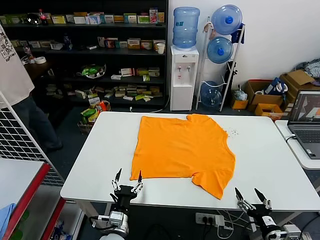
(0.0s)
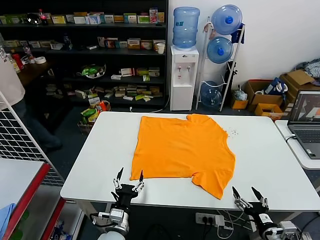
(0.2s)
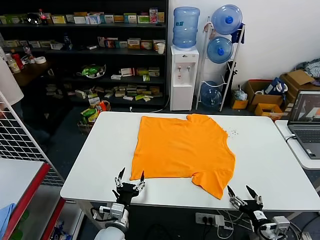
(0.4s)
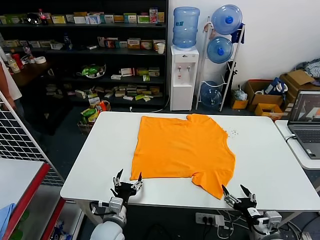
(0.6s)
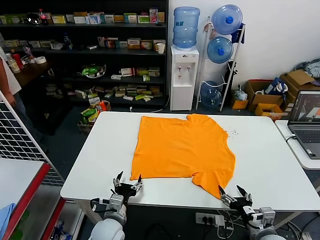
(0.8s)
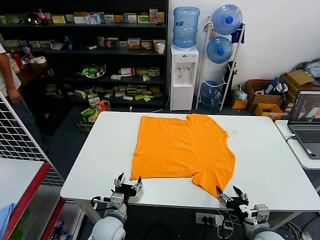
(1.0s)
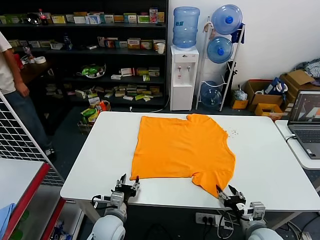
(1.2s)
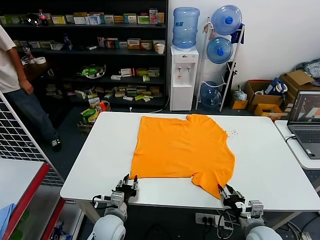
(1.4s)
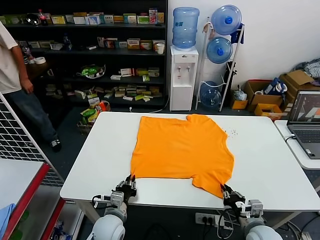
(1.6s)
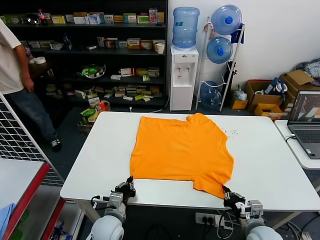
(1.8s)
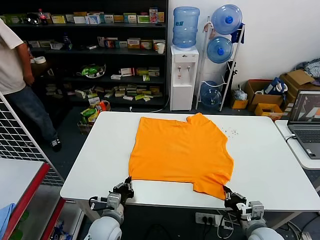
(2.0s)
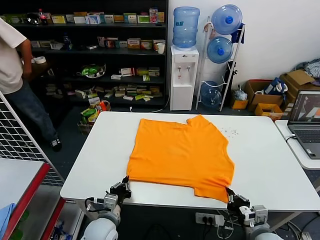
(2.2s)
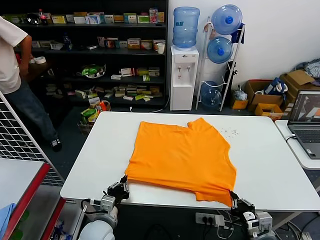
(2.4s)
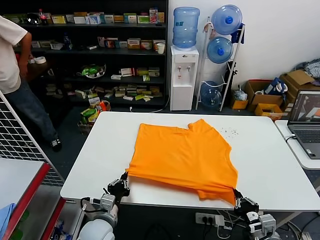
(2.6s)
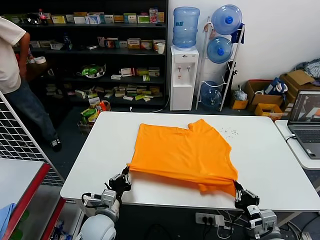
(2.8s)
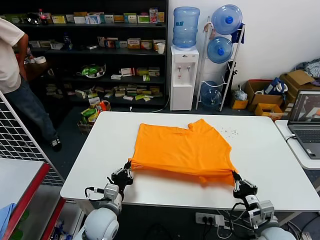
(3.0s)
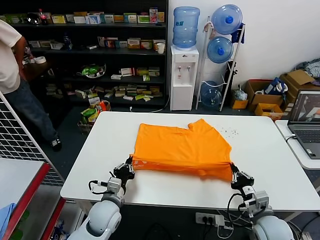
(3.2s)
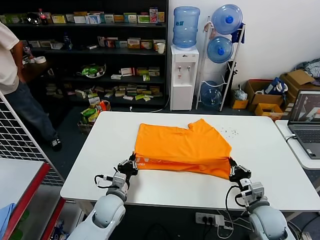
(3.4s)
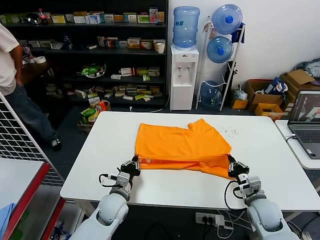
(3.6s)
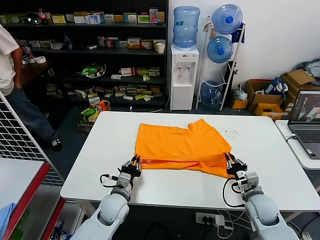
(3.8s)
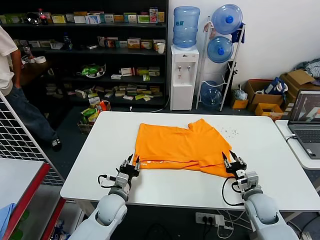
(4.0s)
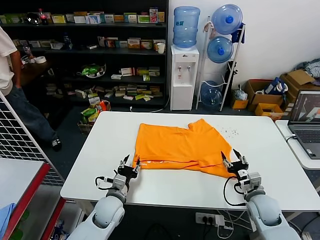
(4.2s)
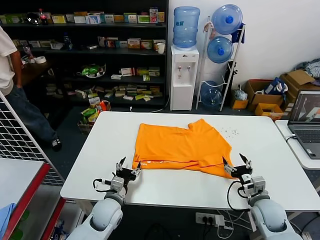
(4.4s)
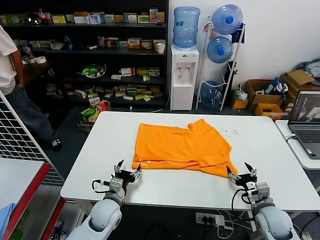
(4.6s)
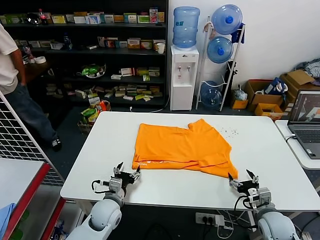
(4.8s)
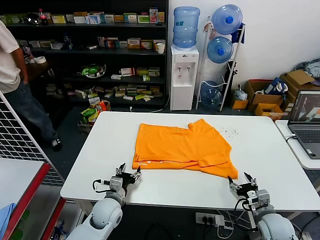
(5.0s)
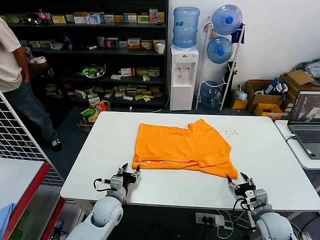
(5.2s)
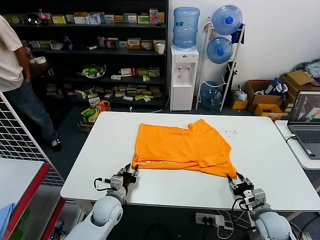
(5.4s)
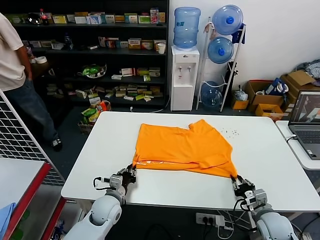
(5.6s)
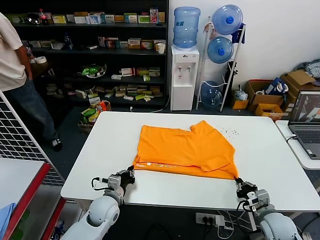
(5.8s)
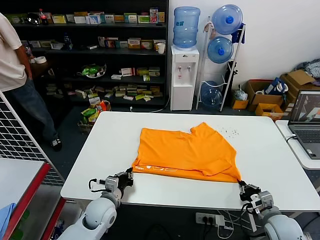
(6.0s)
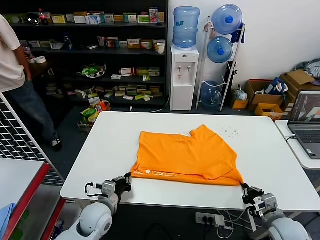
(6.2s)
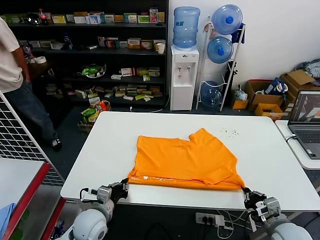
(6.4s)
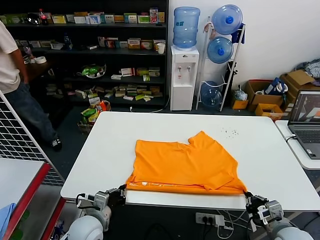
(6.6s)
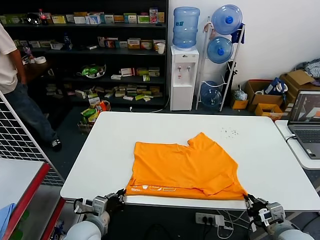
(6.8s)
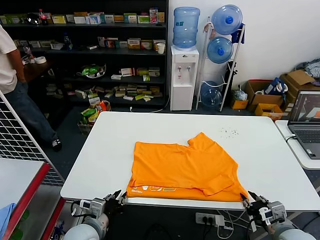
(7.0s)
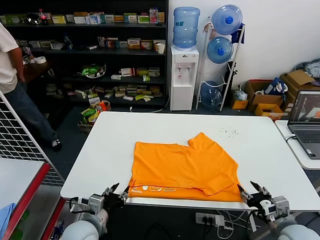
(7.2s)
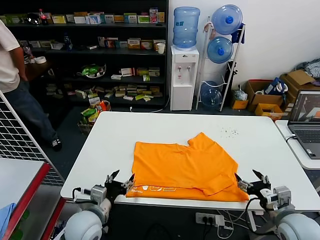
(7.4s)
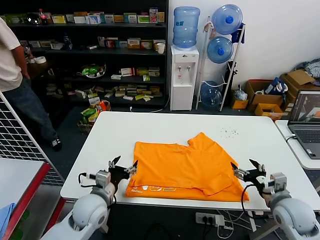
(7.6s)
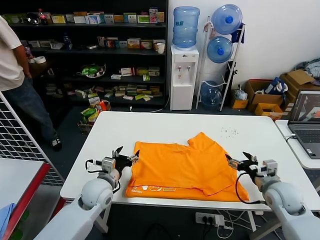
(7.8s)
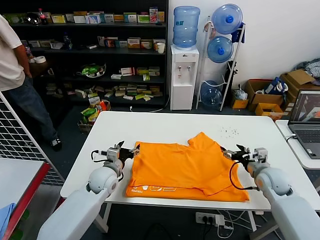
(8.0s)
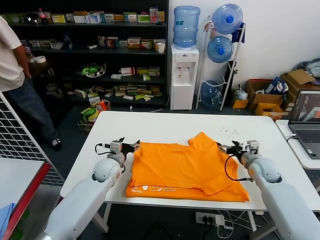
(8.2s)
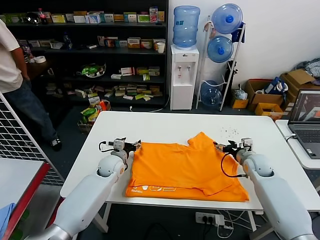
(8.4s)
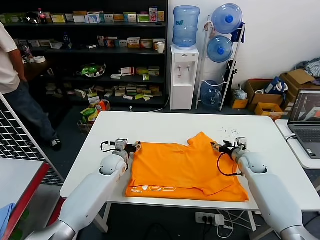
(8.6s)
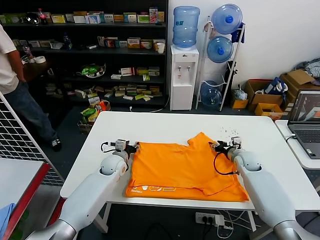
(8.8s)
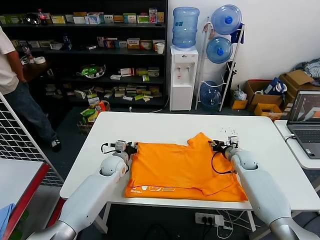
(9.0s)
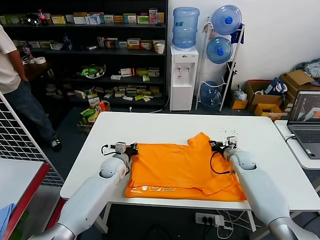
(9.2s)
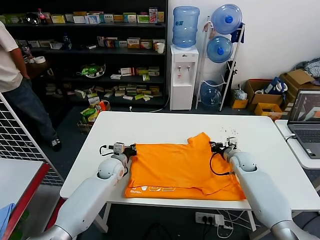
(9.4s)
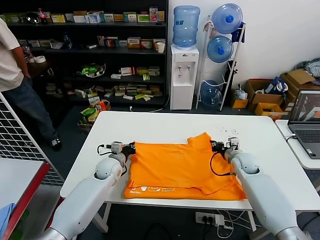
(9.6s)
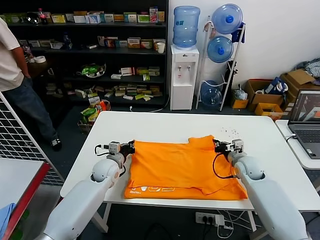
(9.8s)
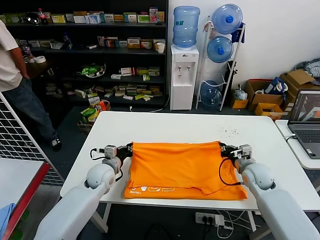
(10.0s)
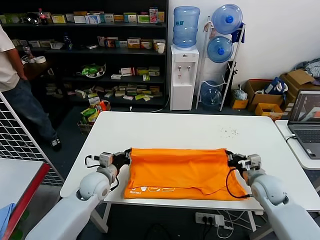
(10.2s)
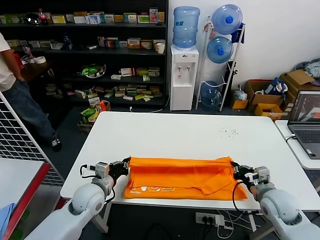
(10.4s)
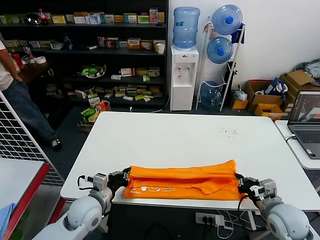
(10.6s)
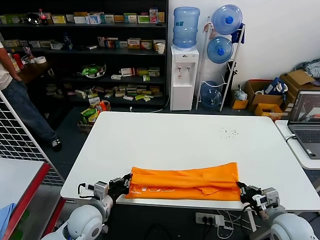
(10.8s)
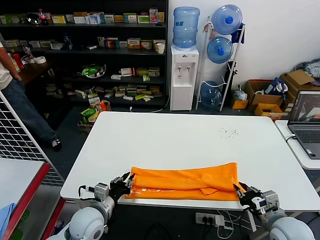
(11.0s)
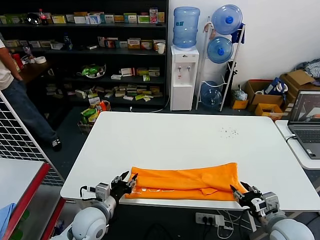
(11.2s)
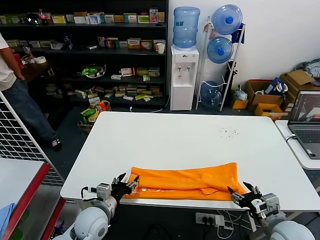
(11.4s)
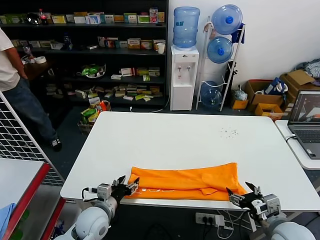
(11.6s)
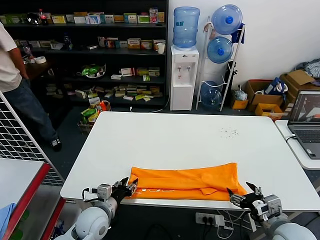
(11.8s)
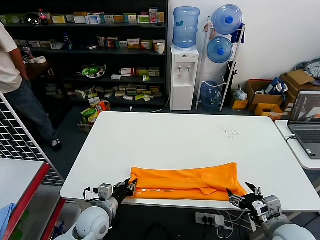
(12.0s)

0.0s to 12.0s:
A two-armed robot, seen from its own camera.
Task of the whole recording: fold and organize the clothes.
Step, 0.0s to 1.8s: use both grippers simultaneously to clamp the lower edge of the clothing fabric.
Step, 2.0s to 3.8s: use both grippers to drag the lower edge of the fabric forward and fold it over the upper edge.
Step, 4.0s to 6.8s: Drag the clothes downward with both gripper.
Step, 7.2s to 9.4s: use both grippers simultaneously to clamp the upper edge of the clothing fabric.
Step, 9.6s to 10.8s: use both grippers to drag the upper edge of the fabric backward and fold it over the lower edge.
1.6s to 3.0s: The left gripper moves some 5 cm, and closes.
3.0s to 4.4s: The left gripper is displaced forward by roughly 5 cm, and opens, while the right gripper moves forward, roughly 10 cm, and opens its fingers.
4.4s to 6.0s: The left gripper closes, while the right gripper goes about 5 cm backward, and closes its fingers.
6.0s to 7.6s: The left gripper travels upward and backward by some 10 cm, and opens up, while the right gripper is displaced upward by roughly 10 cm, and opens up.
7.6s to 9.0s: The grippers both shift forward by roughly 25 cm. The right gripper closes, while the left gripper closes up.
9.0s to 10.4s: Both grippers travel together backward, some 15 cm. The left gripper closes up; the right gripper closes its fingers.
10.4s to 12.0s: The two grippers go about 10 cm backward. The right gripper opens; the left gripper opens up.

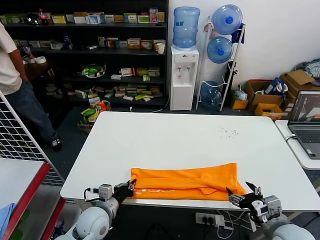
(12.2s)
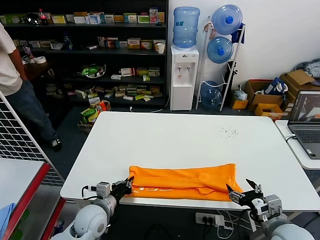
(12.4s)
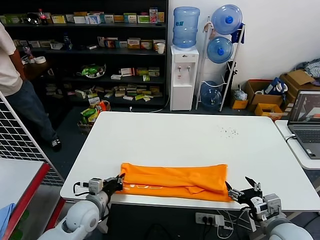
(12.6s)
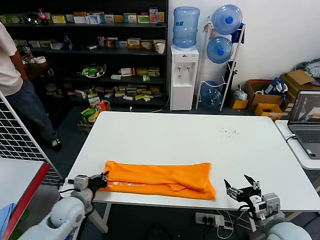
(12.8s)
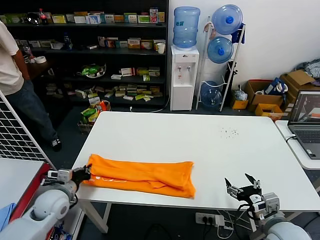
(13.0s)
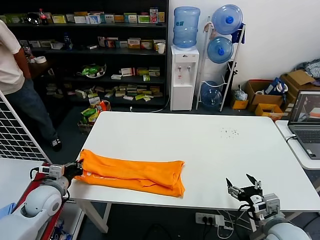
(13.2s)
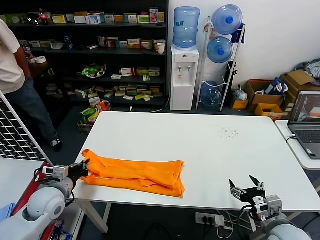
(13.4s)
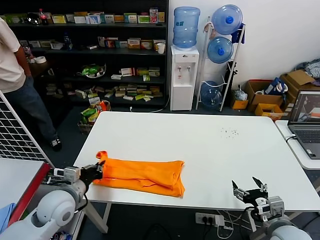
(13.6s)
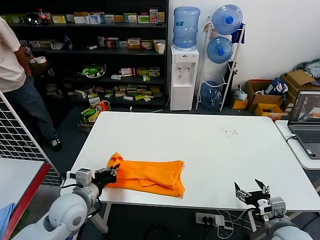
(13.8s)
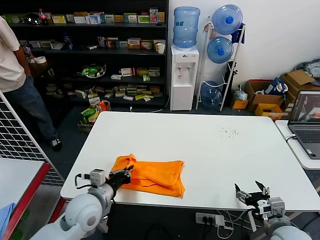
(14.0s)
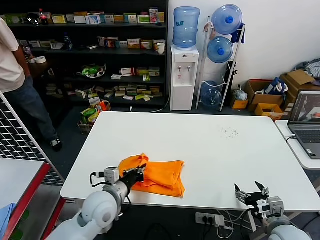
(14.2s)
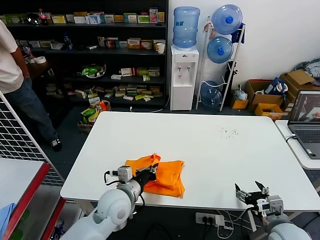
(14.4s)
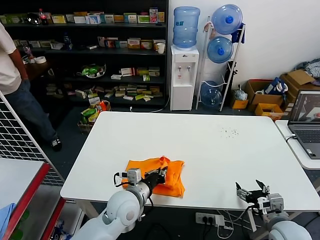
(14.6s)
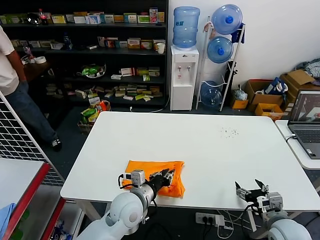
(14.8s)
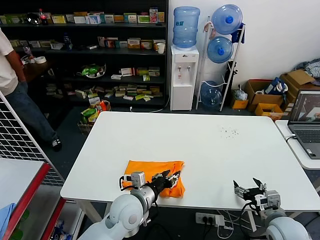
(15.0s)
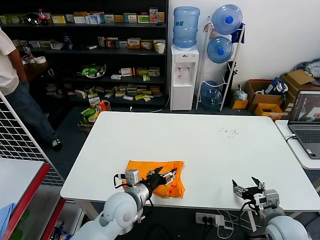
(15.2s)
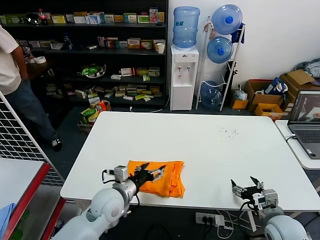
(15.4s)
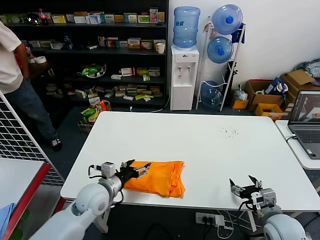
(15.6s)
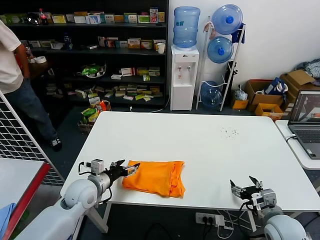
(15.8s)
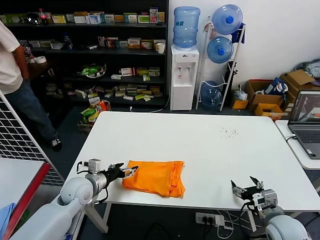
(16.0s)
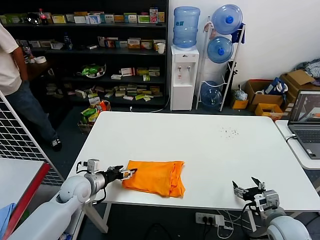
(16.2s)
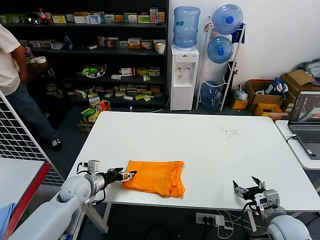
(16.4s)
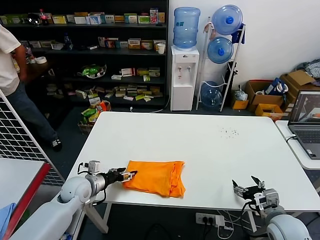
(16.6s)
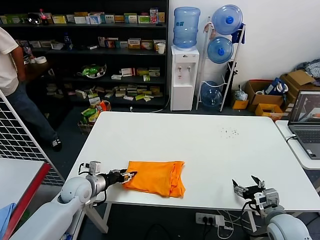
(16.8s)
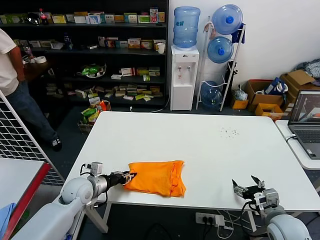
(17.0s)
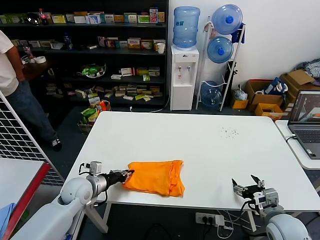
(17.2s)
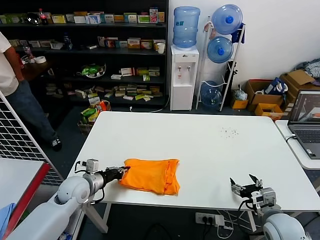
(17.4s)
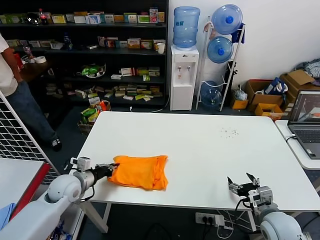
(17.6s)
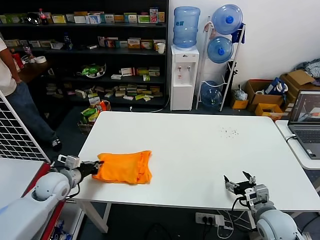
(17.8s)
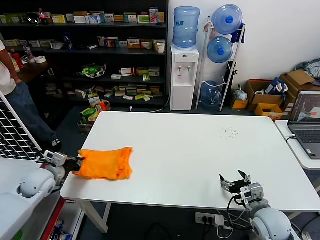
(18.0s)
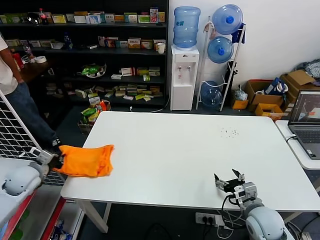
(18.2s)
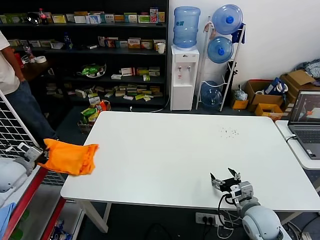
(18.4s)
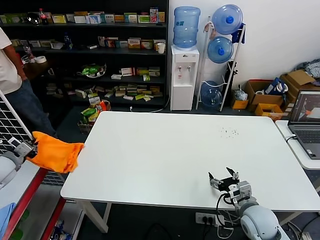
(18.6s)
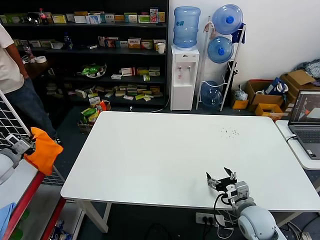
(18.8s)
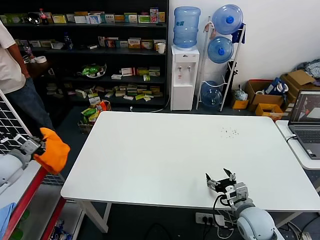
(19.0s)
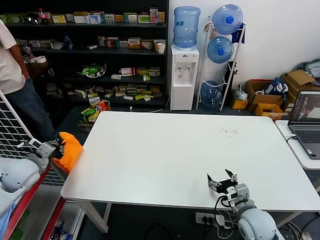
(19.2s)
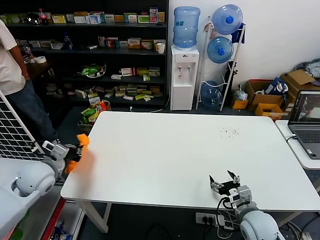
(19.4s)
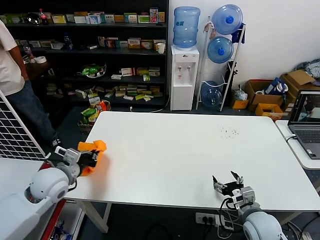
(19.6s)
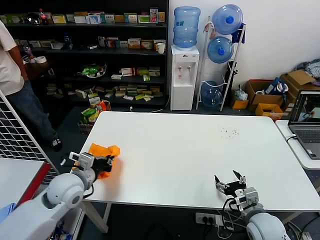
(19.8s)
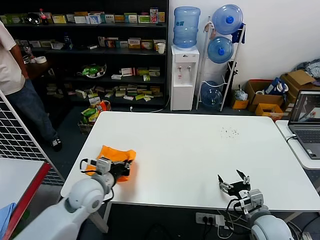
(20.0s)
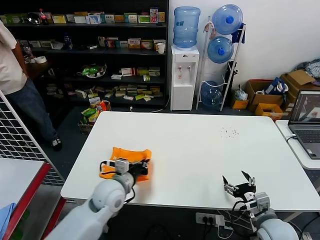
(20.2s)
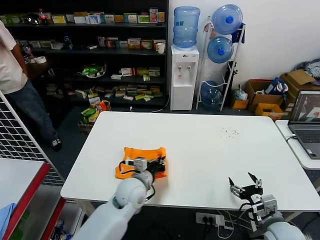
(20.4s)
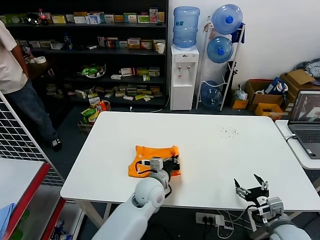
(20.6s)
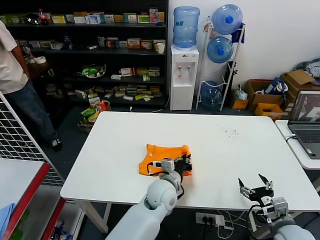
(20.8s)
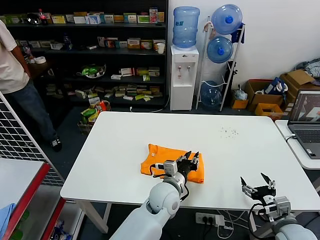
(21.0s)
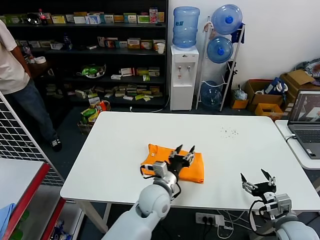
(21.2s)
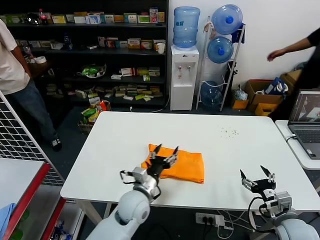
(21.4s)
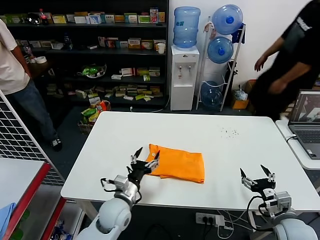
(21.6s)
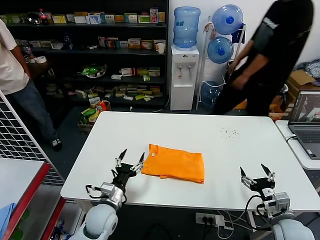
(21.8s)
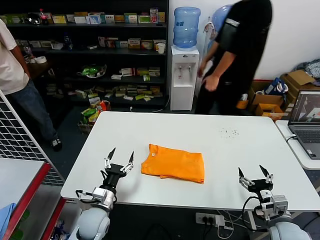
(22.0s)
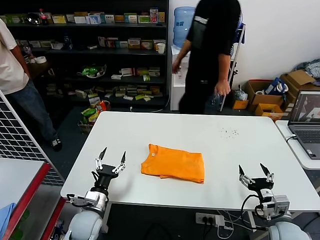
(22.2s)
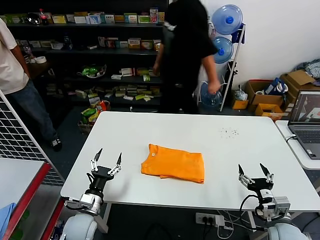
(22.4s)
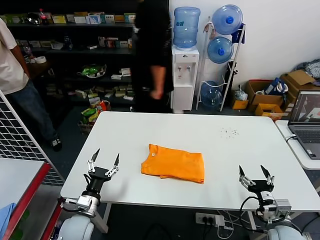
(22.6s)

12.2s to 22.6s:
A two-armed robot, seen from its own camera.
Task of the whole recording: fold and organize the clothes.
Step, 12.4s to 14.6s: use the left gripper to drag the left edge of the fabric to the left and folds it over the right edge.
Step, 15.0s to 20.8s: Flip the folded clothes over with left gripper.
12.2s to 13.6s: The left gripper heads to the left and upward, covering some 15 cm.
13.6s to 15.2s: The left gripper moves to the right, about 20 cm, and opens.
15.2s to 16.6s: The left gripper goes some 20 cm to the left and forward.
16.6s to 18.2s: The right gripper changes place by about 5 cm; the left gripper is displaced to the left and upward by some 15 cm, and closes its fingers.
18.2s to 19.6s: The left gripper moves to the right and upward, approximately 10 cm.
19.6s to 21.2s: The right gripper heads to the right, covering about 10 cm. The left gripper is displaced to the right by about 35 cm, and opens its fingers.
21.2s to 22.6s: The left gripper heads to the left, covering roughly 25 cm, and opens.
